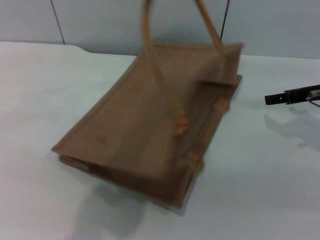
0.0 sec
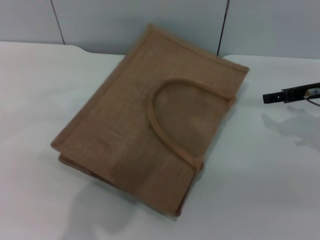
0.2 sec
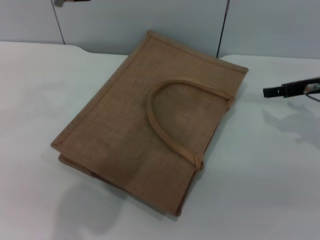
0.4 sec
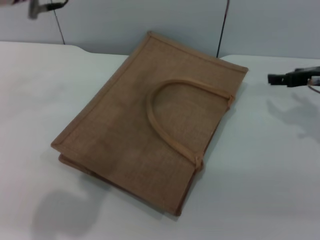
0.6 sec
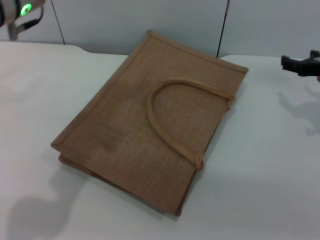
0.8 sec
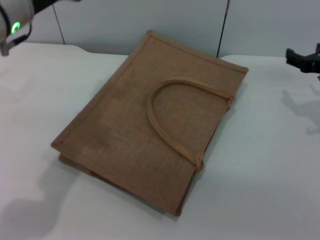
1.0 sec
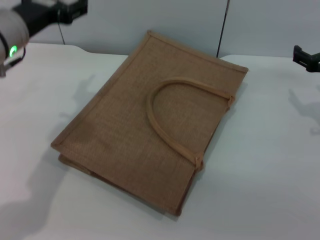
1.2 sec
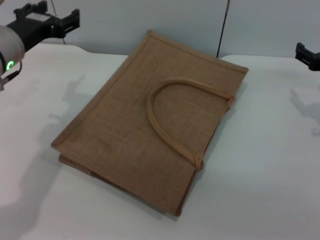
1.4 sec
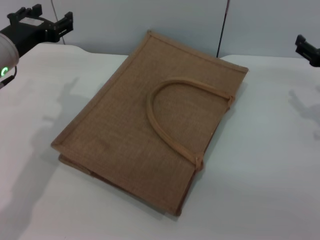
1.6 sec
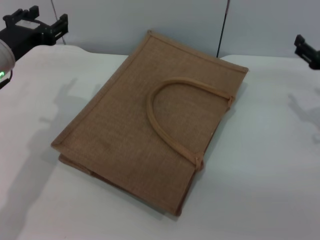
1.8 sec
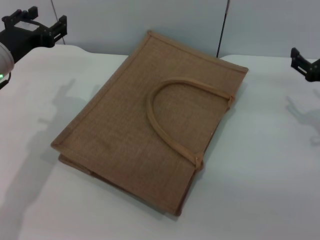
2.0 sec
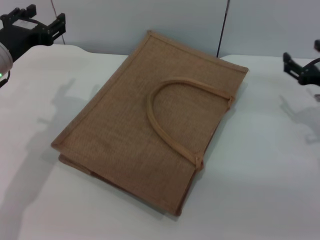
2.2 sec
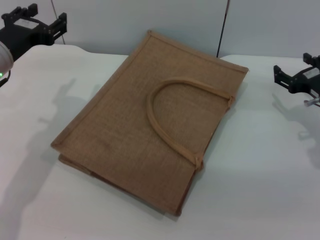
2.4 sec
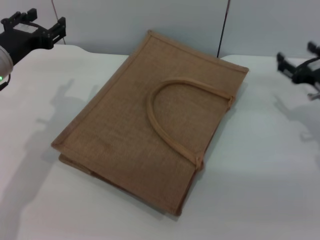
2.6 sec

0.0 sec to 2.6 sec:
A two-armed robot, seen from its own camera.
Task of the whole recording: pick up the bread from the table and place it in the brown handbag.
Step, 0.0 sec to 0.6 sec: Lower the woven bag with the left gripper to close it.
0.0 sec to 1.2 sec: The left gripper goes roughly 20 cm downward and to the left, and opens its fingers.
1.2 sec to 2.6 sec: The left gripper shifts by roughly 5 cm.

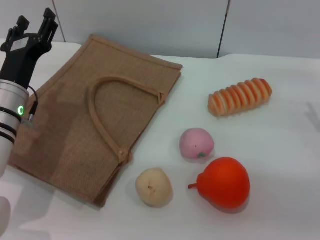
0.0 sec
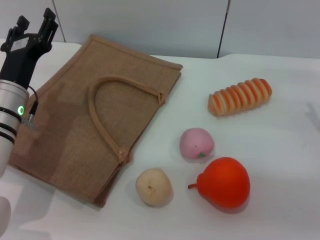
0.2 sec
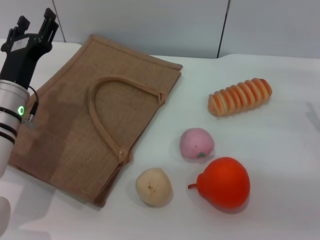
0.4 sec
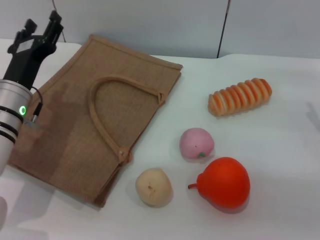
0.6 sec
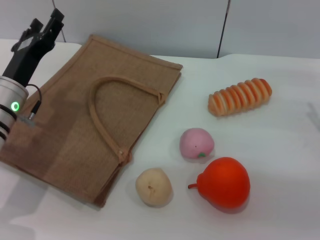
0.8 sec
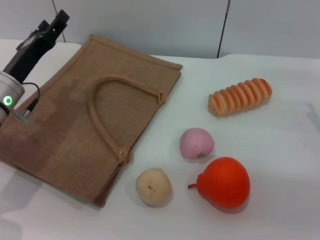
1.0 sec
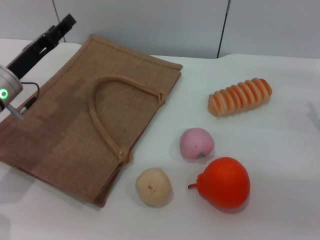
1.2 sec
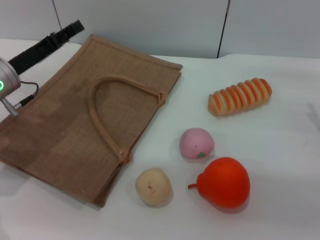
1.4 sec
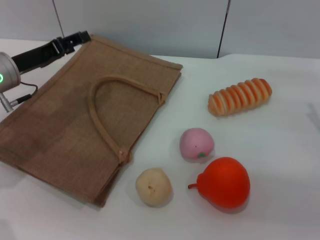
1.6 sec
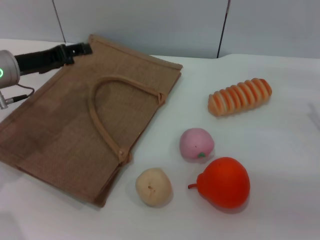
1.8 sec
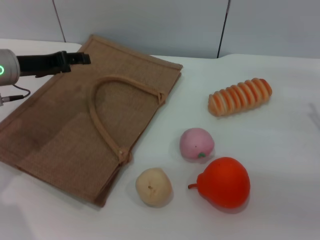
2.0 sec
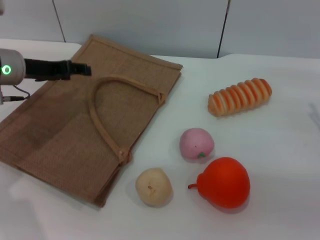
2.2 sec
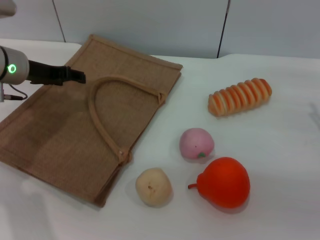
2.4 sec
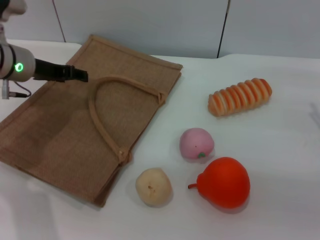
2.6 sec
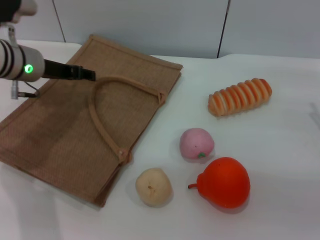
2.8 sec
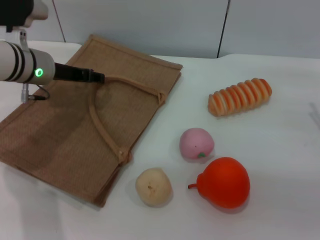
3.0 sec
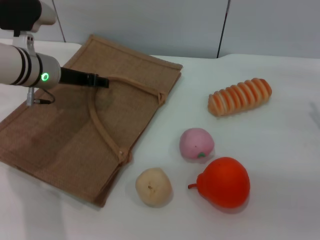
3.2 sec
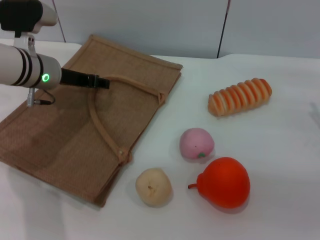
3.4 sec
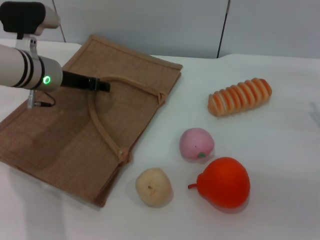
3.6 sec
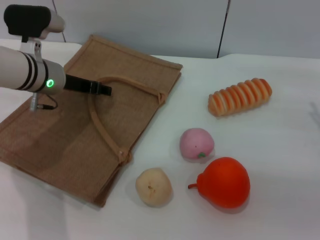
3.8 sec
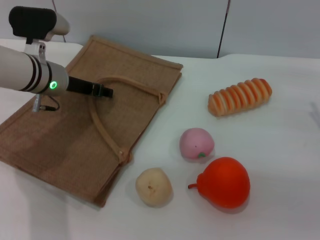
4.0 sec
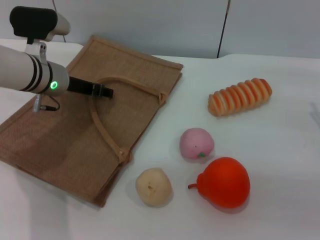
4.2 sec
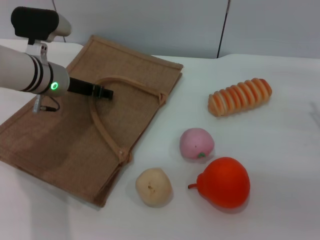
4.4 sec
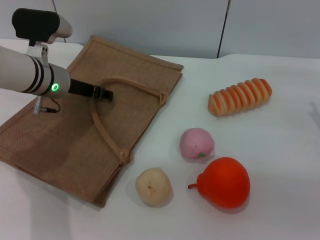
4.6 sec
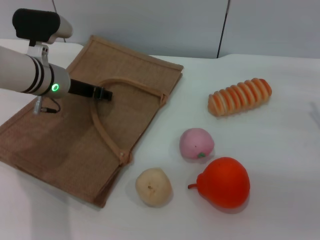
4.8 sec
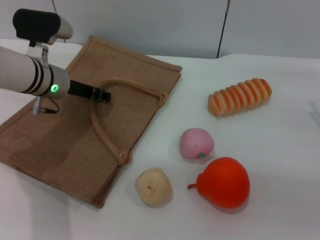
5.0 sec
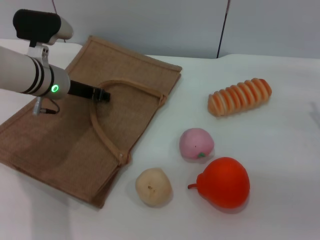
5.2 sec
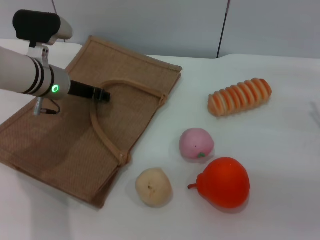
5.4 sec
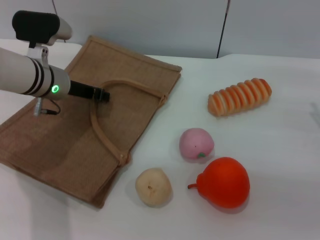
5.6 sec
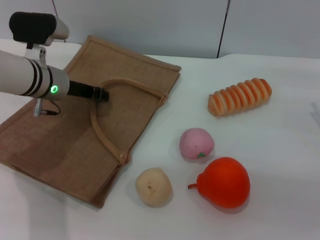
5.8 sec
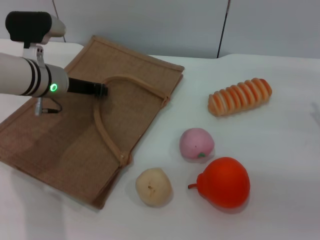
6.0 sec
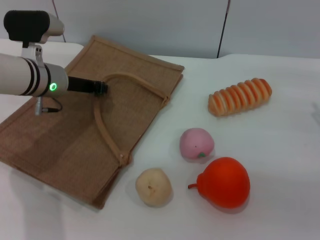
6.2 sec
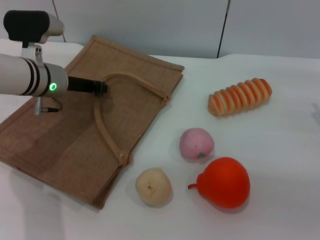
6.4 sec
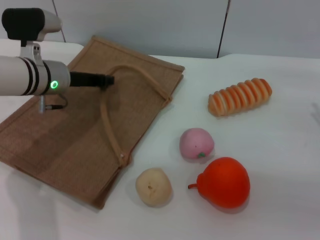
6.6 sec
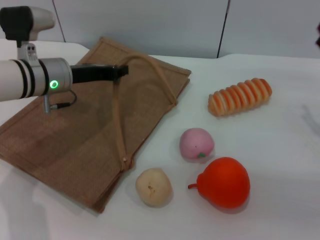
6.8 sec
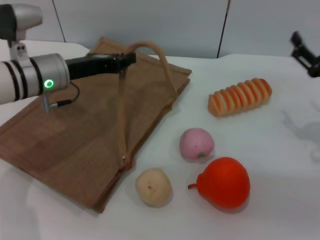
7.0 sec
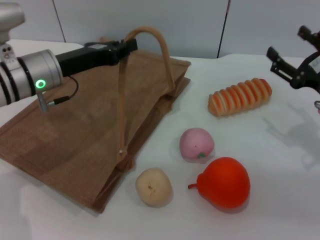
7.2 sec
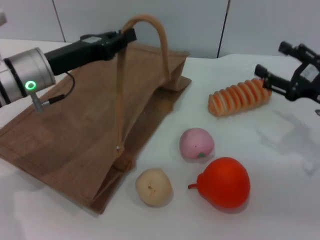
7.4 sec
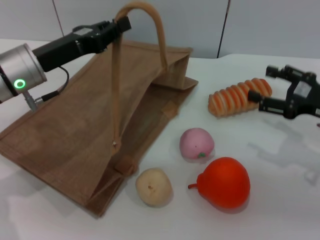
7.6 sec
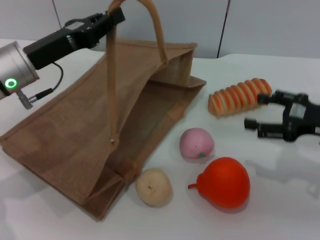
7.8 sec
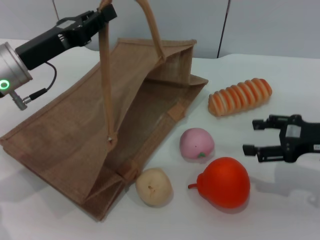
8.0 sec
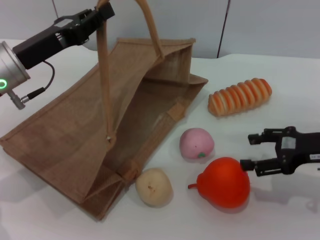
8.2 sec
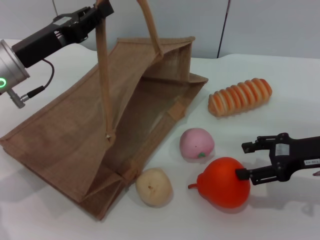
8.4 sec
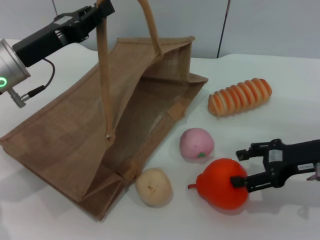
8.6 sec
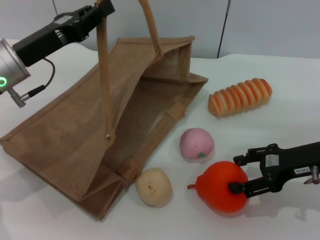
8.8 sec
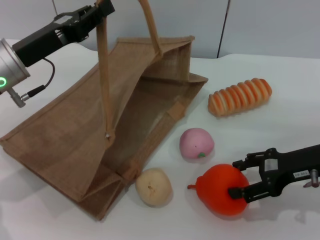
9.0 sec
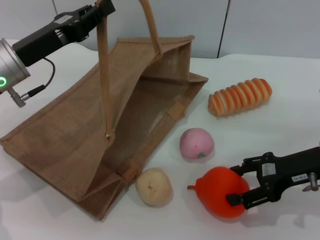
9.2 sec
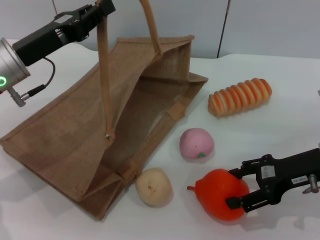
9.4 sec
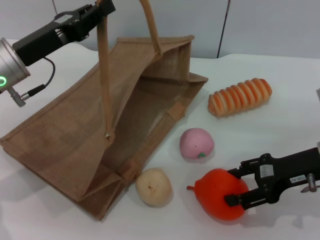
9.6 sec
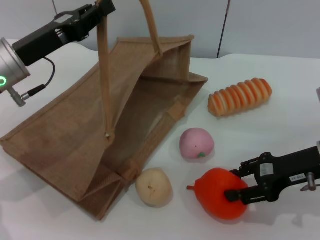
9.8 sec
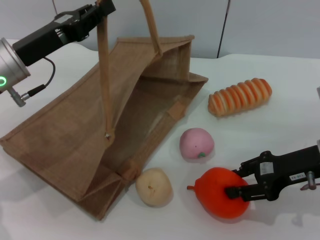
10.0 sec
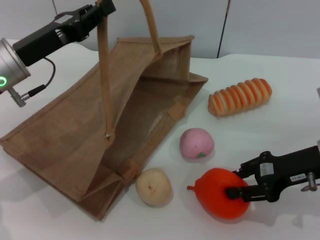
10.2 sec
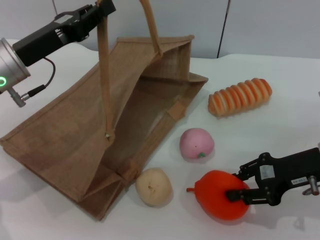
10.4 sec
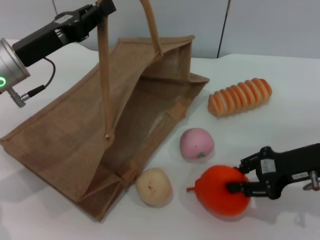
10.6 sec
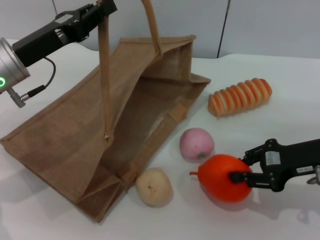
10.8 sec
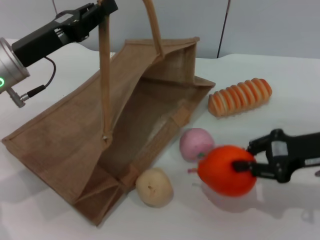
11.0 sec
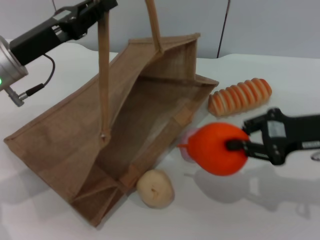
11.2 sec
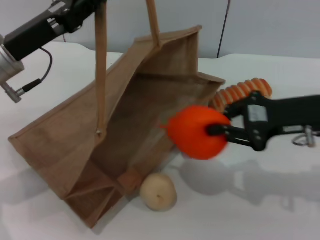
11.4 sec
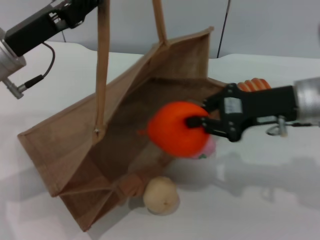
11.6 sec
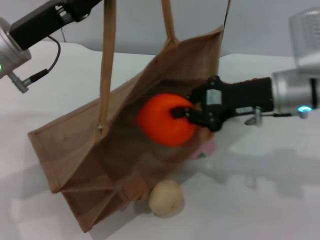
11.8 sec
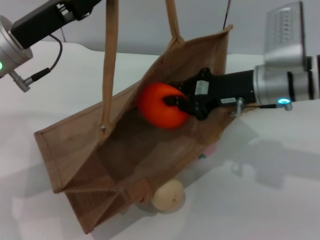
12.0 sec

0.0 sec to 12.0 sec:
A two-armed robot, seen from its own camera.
Task of the whole recording: pick up the orange and peach from the table and place it in the brown handbag.
Step, 0.0 sec to 7.0 sec: Lift the woven bag with the left gripper to open it.
Step, 7.2 sec to 10.8 sec: Pick up the orange with the right gripper.
0.0 sec to 1.6 sec: The left gripper shifts by about 10 cm.
1.6 sec to 3.0 sec: The left gripper ends up roughly 5 cm from where it was.
3.0 sec to 4.4 sec: The grippers make only small movements.
4.4 sec to 6.0 sec: The left gripper closes up.
6.0 sec to 7.6 sec: The left gripper is displaced backward by roughly 5 cm.
9.0 sec to 10.4 sec: The right gripper closes.
10.4 sec to 12.0 sec: The right gripper travels to the left and forward by roughly 10 cm, and closes up.

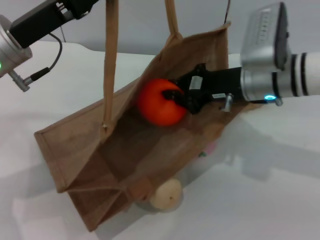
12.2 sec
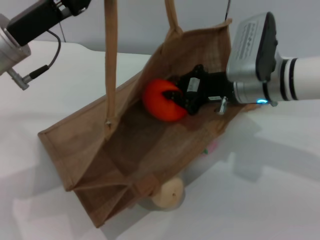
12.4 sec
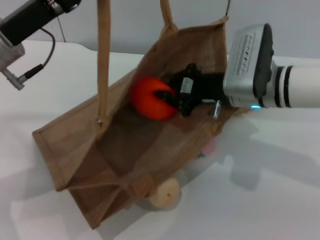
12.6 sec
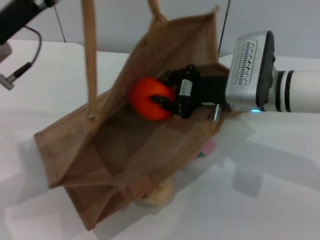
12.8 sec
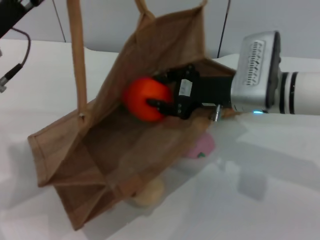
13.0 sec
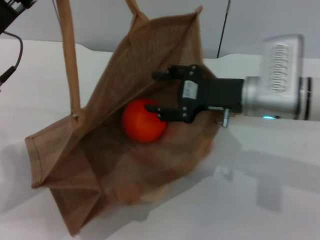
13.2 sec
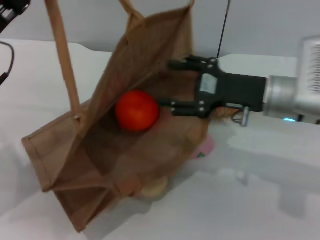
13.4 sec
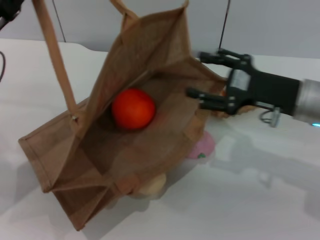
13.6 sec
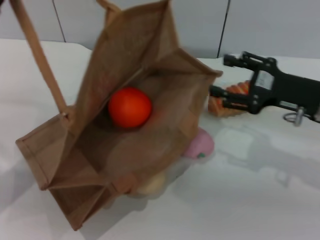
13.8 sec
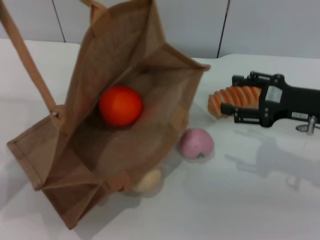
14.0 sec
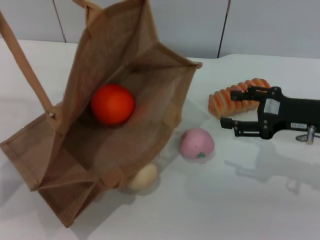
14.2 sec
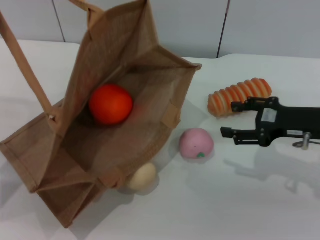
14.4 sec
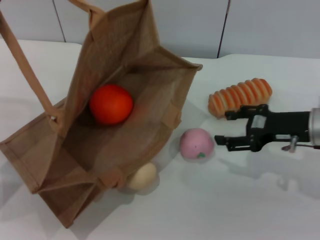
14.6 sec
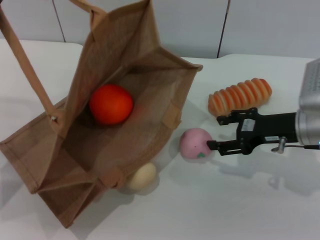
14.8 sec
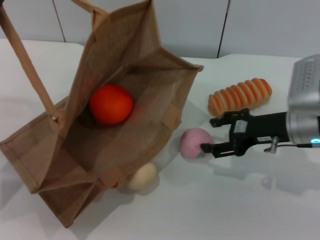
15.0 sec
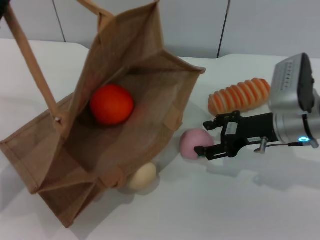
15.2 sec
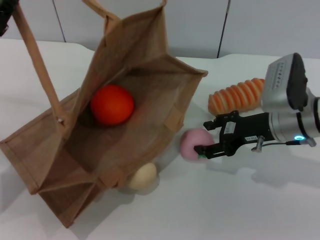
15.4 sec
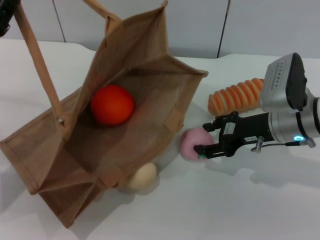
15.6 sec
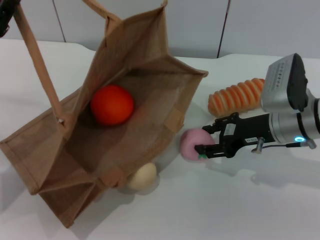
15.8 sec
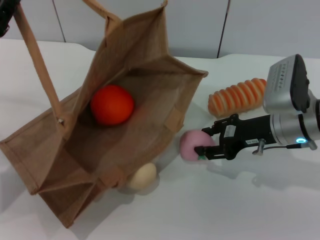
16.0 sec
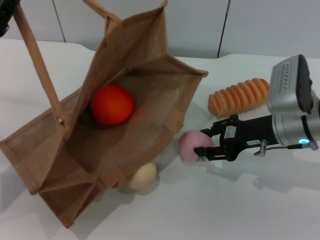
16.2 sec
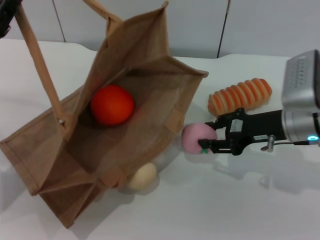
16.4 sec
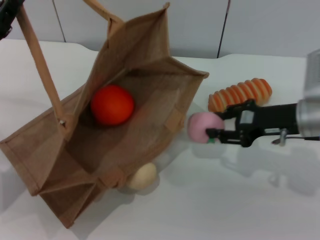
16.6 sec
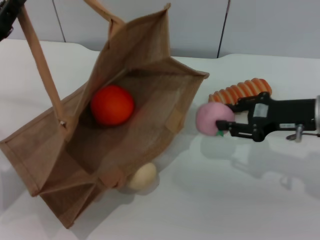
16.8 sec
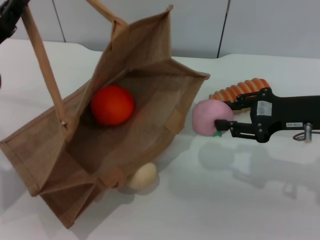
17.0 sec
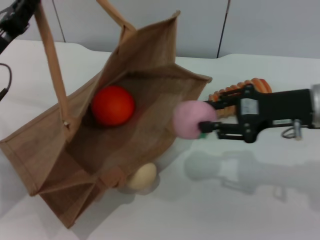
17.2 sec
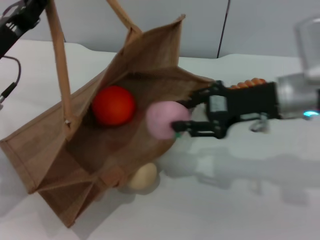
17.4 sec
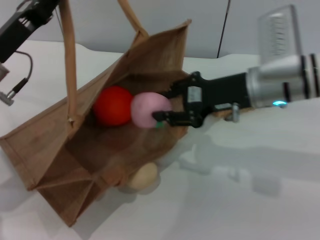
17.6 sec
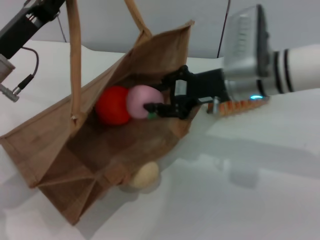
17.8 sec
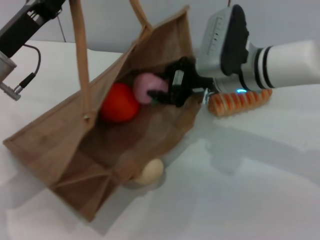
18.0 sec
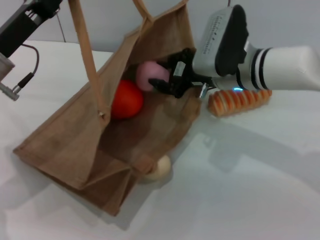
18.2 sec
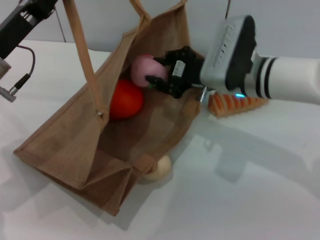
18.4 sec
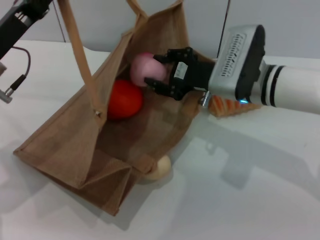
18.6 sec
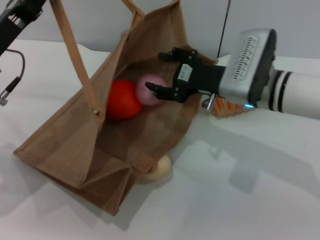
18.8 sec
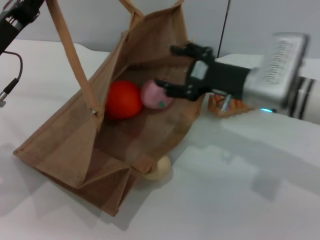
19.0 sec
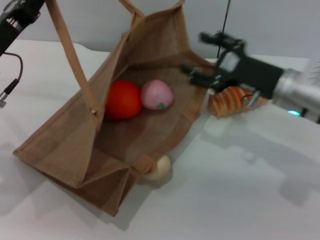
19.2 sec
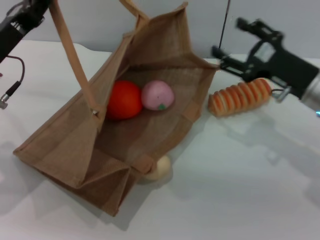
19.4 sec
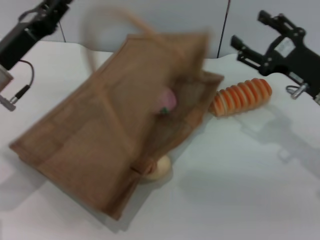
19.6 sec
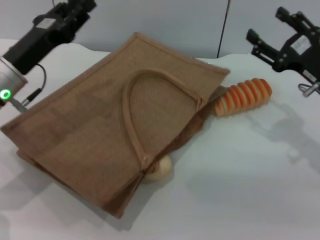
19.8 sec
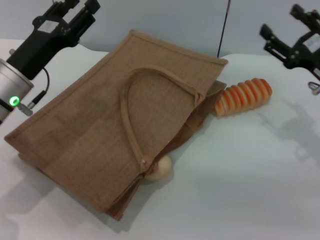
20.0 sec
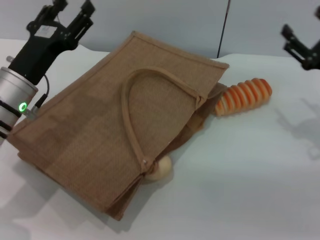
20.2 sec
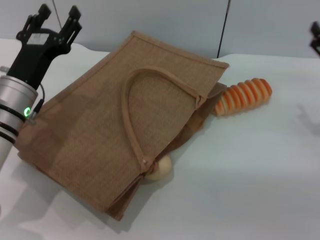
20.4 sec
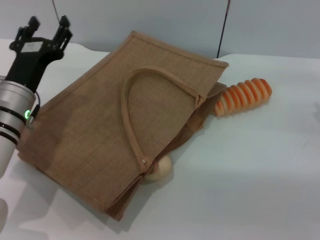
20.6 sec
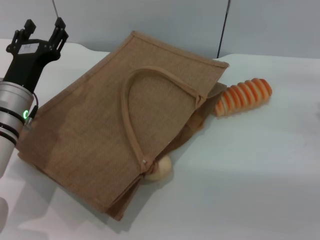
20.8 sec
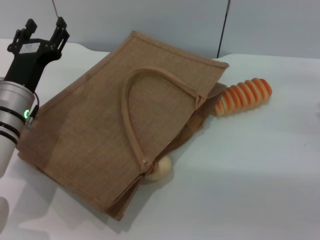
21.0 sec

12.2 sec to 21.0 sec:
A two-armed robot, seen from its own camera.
Task of the whole recording: pick up the orange and peach from the table and place it in the brown handbag.
Step, 12.2 sec to 13.4 sec: Place the orange into the woven bag with the right gripper.
Step, 13.6 sec to 16.4 sec: Pick up the peach with the right gripper.
Step, 16.6 sec to 19.0 sec: Place the peach into the woven bag with the right gripper.
Step, 19.2 sec to 20.0 sec: Lower the woven bag with the left gripper to close it.
12.2 sec to 13.6 sec: The right gripper heads to the right, covering approximately 5 cm, and opens, while the left gripper travels to the left by roughly 5 cm.
15.2 sec to 16.6 sec: The right gripper closes.
16.6 sec to 18.0 sec: The left gripper ends up about 5 cm from where it was. Meanwhile the right gripper moves to the left, roughly 15 cm.
18.0 sec to 19.6 sec: The right gripper goes some 15 cm to the right and backward, and opens its fingers.
19.6 sec to 21.0 sec: The left gripper is displaced downward by roughly 5 cm, and opens up. The right gripper heads to the right, covering approximately 5 cm.
